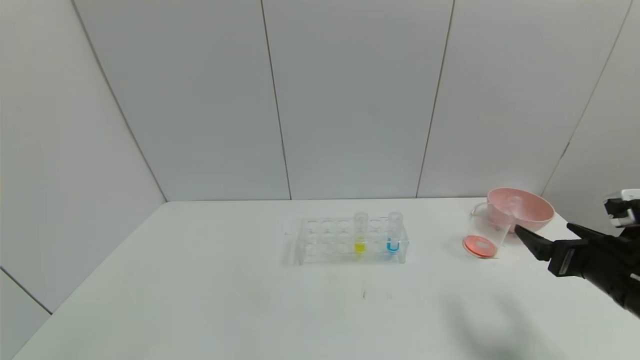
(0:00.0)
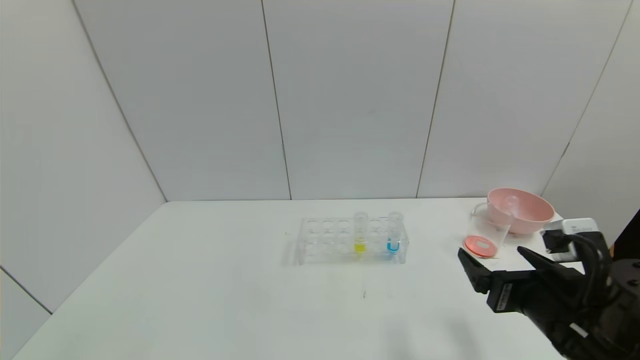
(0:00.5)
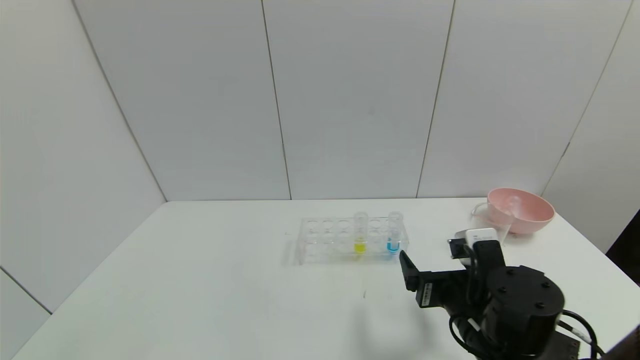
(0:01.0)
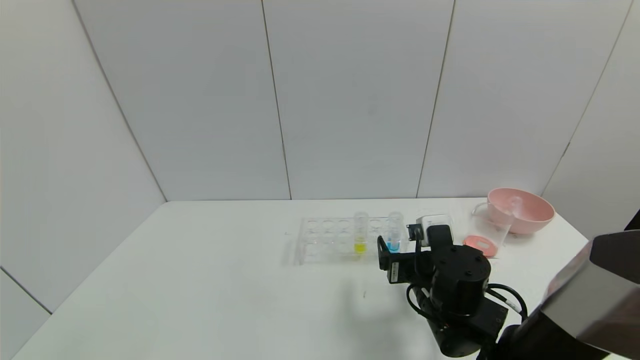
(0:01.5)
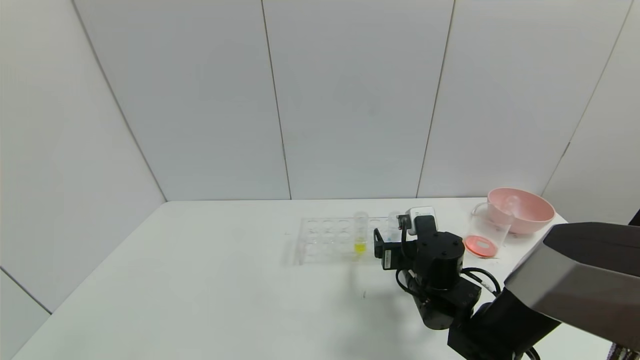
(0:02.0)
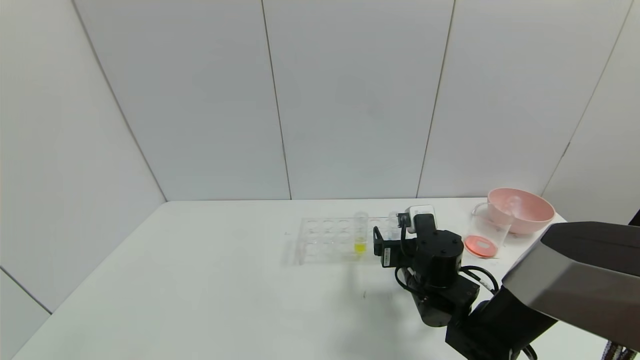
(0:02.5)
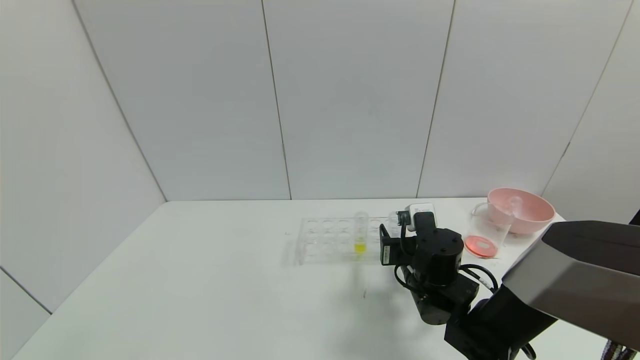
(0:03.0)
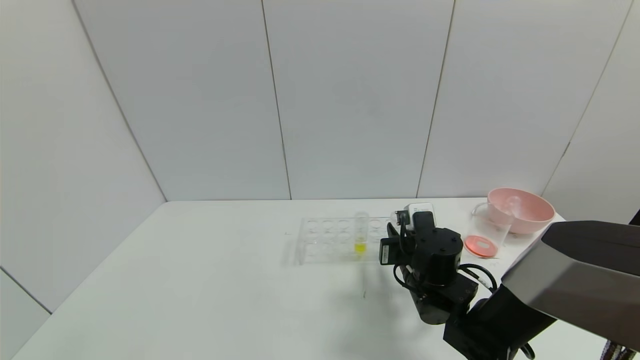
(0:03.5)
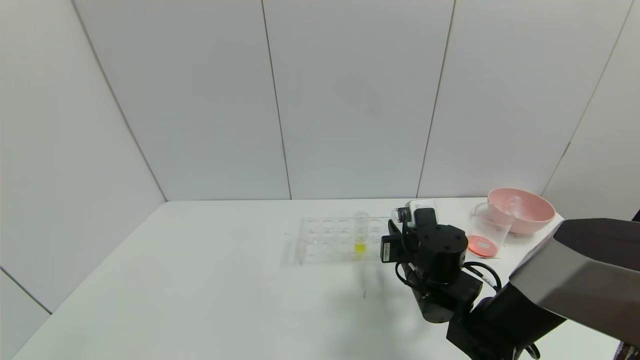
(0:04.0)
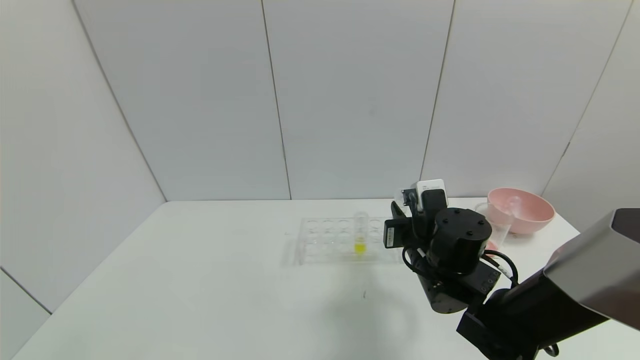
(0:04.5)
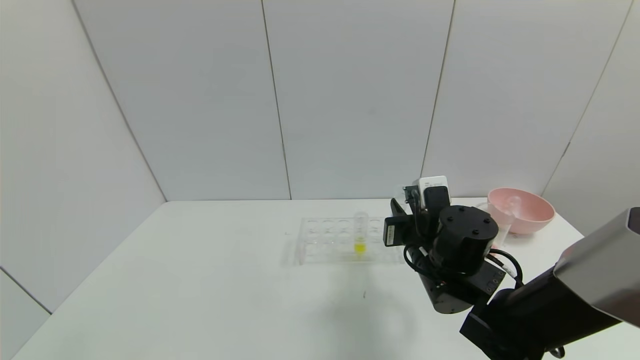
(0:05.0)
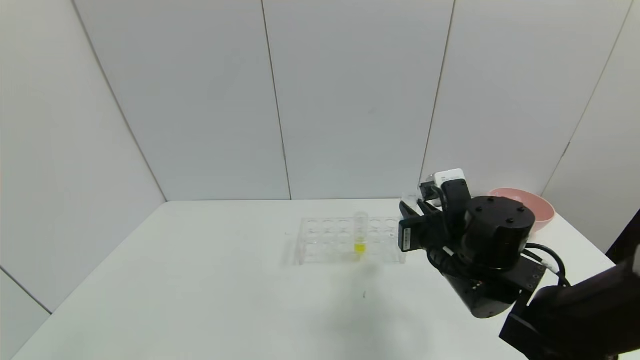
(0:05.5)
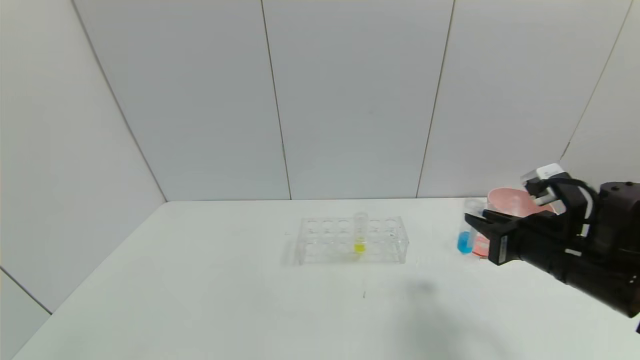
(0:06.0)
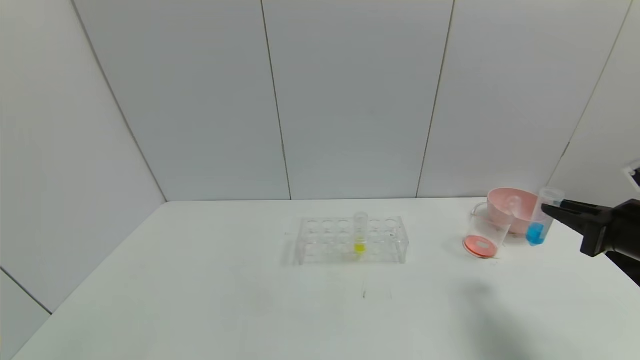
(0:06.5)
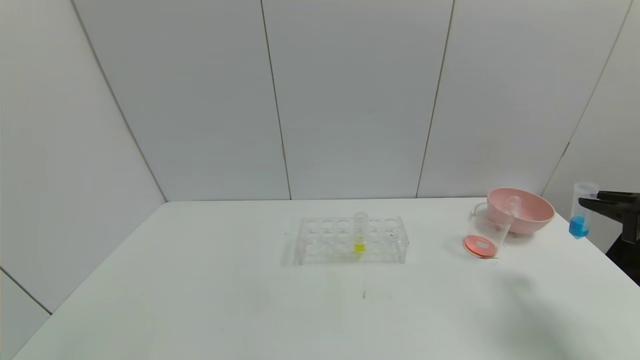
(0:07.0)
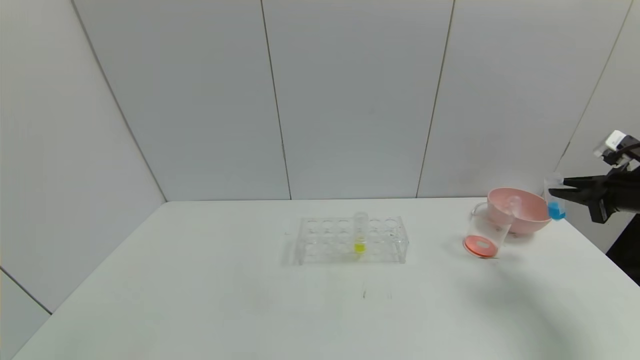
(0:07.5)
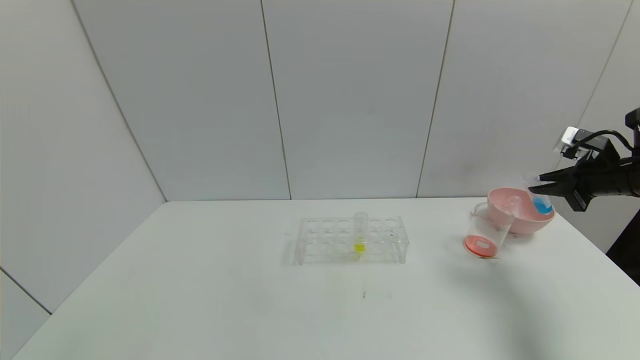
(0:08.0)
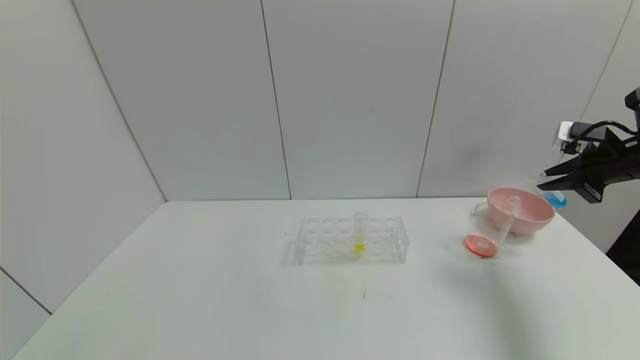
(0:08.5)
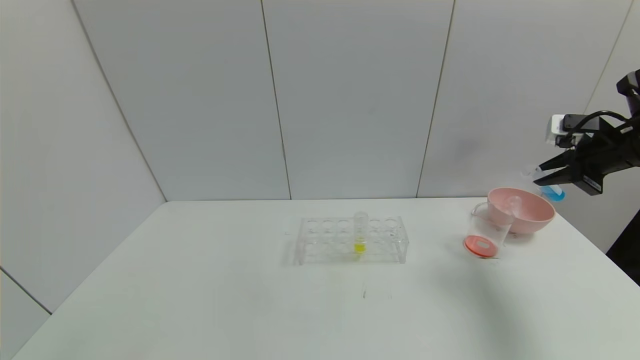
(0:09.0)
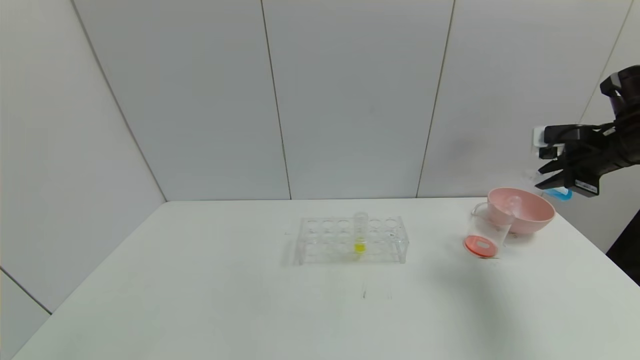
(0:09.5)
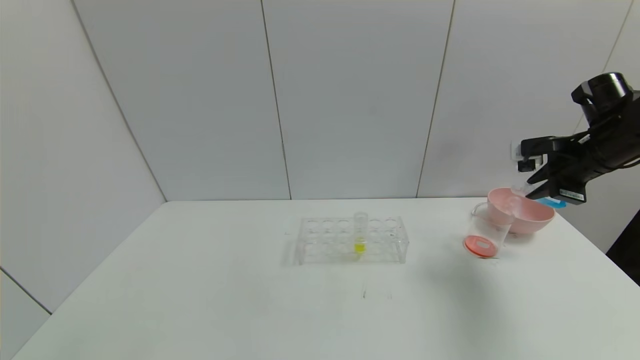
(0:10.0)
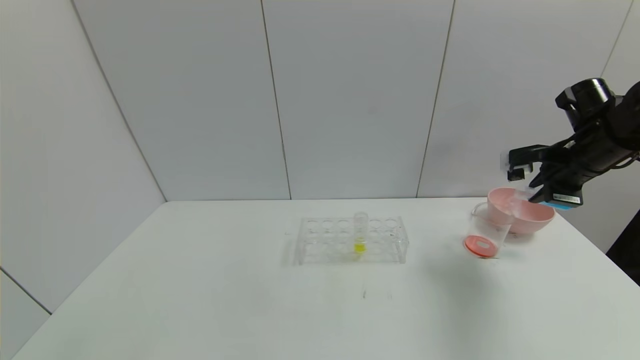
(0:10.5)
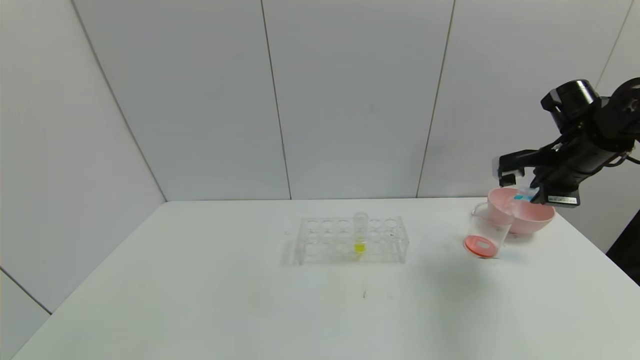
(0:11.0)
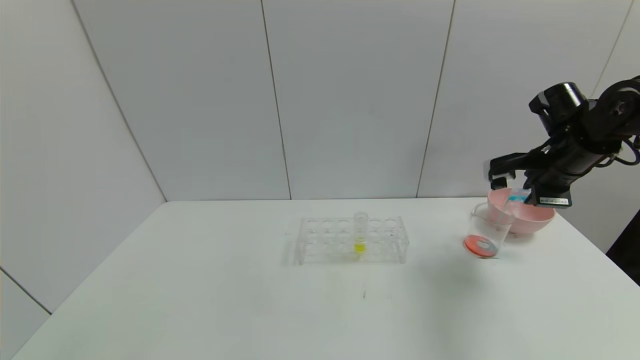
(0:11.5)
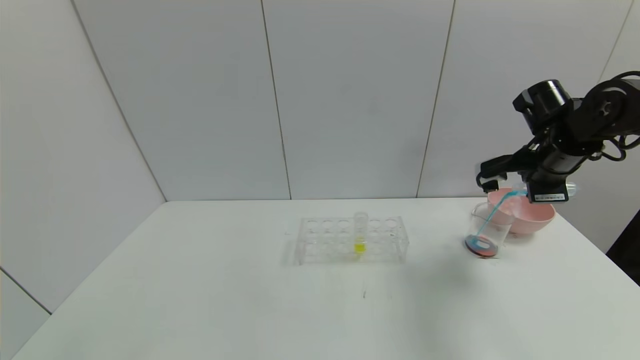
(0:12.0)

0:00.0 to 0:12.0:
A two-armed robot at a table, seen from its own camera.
Task of the whole recording: pick up the test tube with red pigment and the test tube with blue pigment by grippers and pour them into the container.
Step, 0:00.0 to 0:03.0: Grasp the blue reagent with the right gripper.
0:00.0 to 0:02.0: The right gripper goes approximately 20 cm to the left and forward.
0:02.0 to 0:04.0: The right gripper closes up.
0:04.0 to 0:06.0: The right gripper shifts some 20 cm to the right and upward.
0:06.0 to 0:08.0: The right gripper moves to the right and forward, about 20 cm.
0:08.0 to 0:10.0: The right gripper heads to the left, covering approximately 5 cm.
0:10.0 to 0:12.0: The right gripper heads to the left, covering about 5 cm.

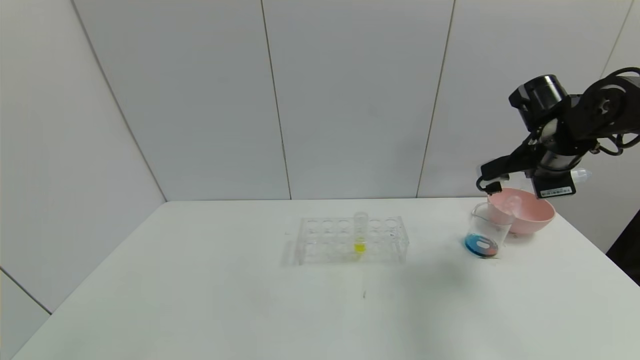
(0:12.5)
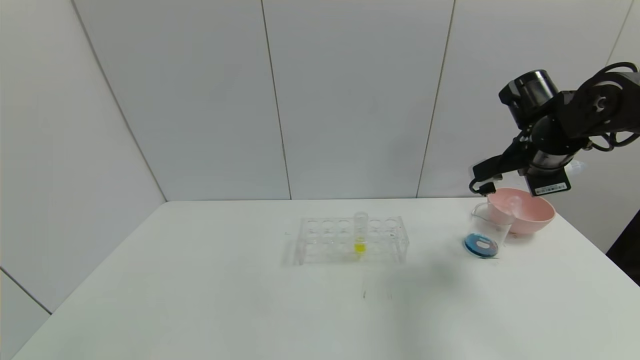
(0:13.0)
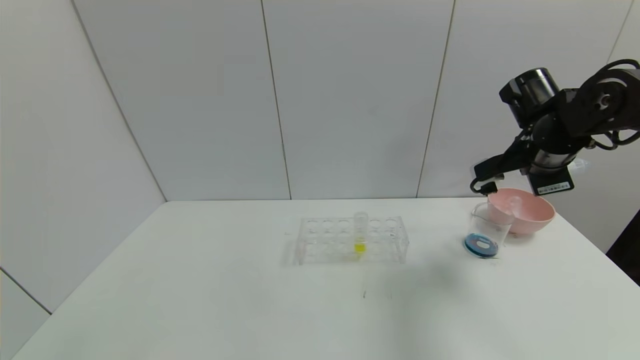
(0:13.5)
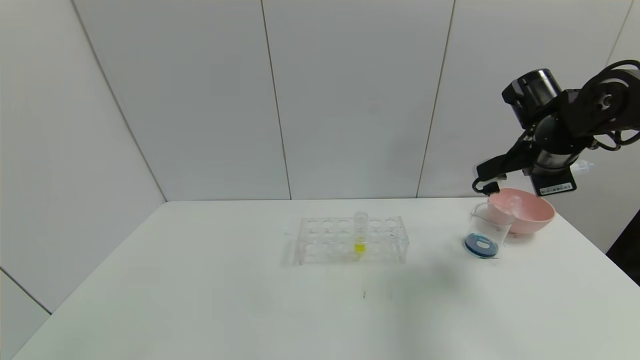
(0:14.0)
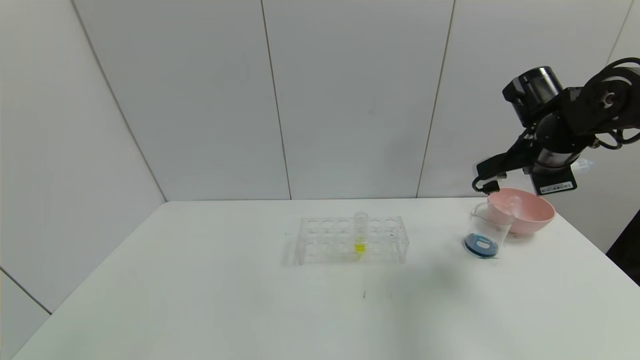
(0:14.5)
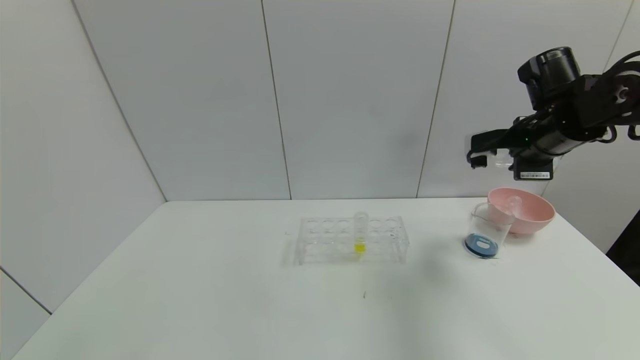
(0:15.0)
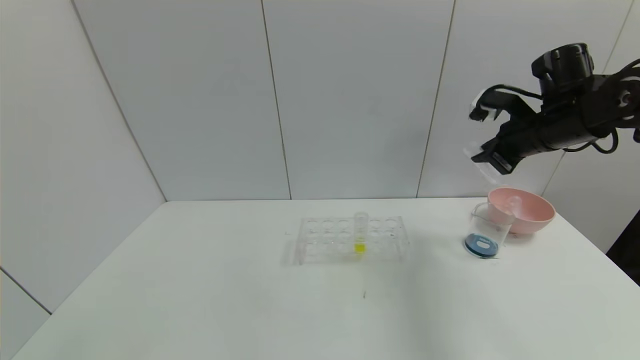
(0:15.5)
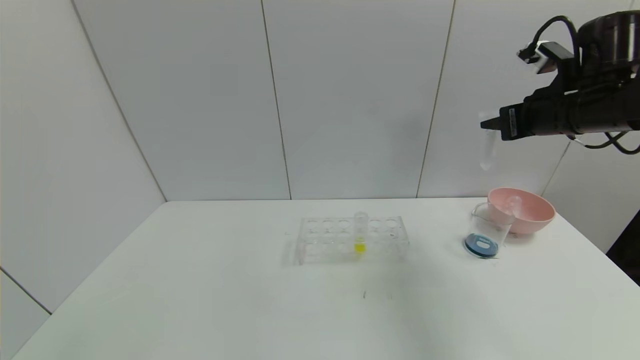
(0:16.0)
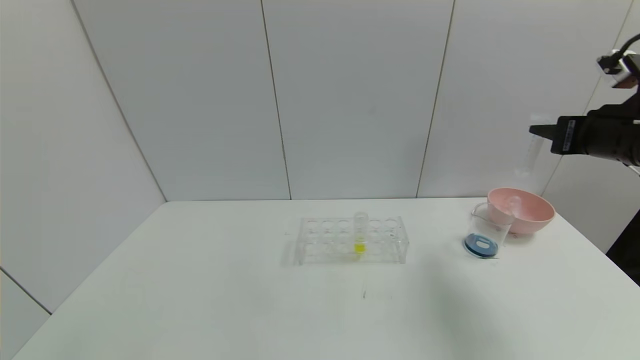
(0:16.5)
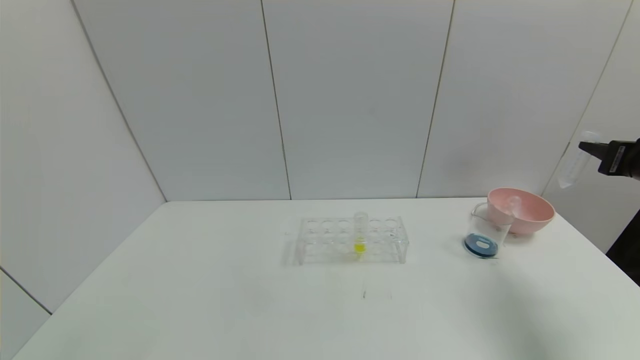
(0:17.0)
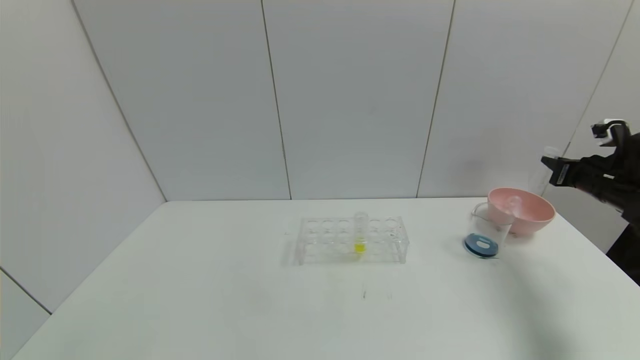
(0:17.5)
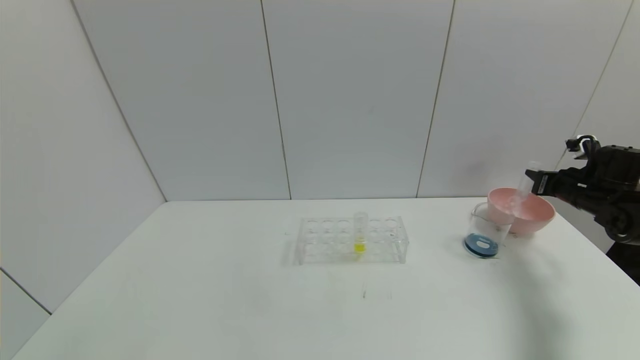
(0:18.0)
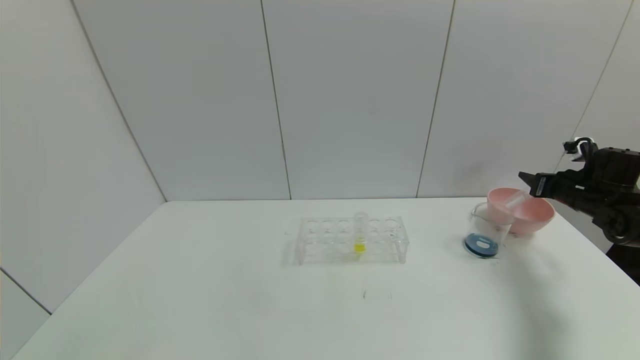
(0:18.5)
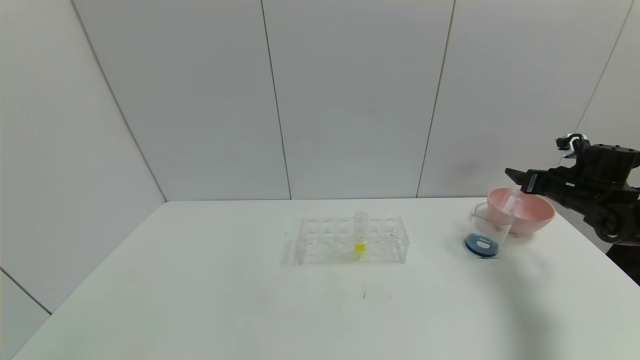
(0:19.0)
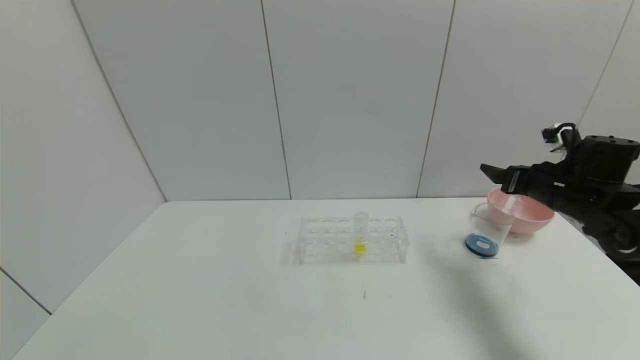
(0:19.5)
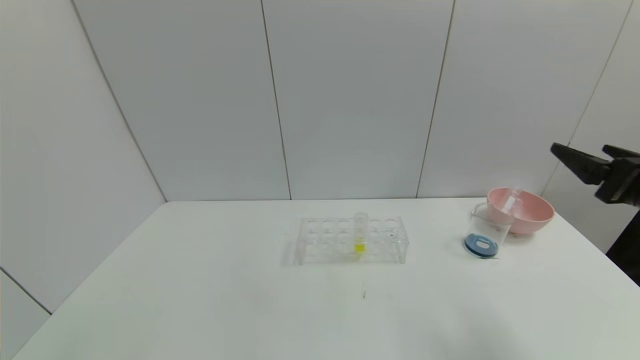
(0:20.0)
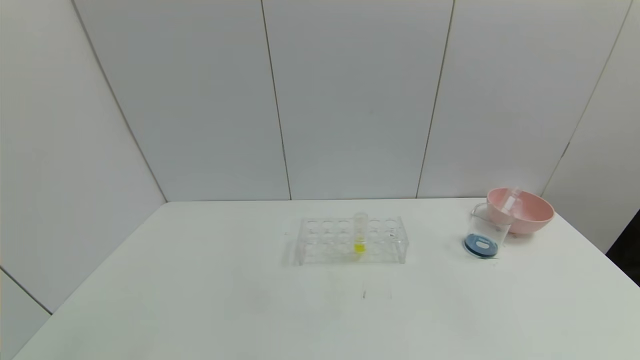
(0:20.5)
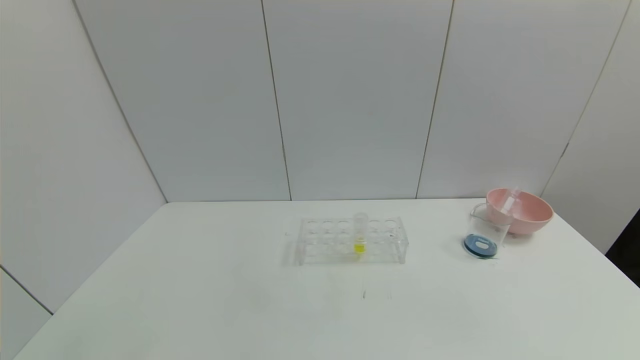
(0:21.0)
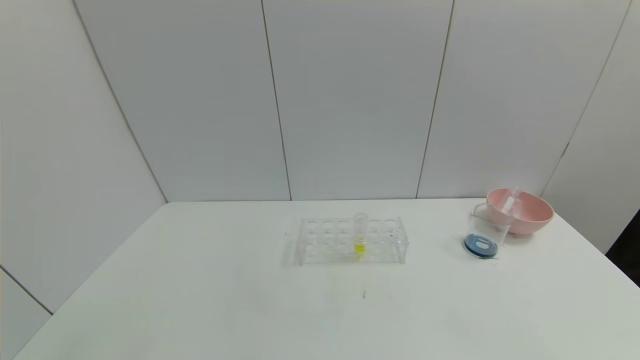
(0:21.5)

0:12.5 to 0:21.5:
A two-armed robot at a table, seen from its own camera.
Task of the whole recording: pick up the test tube with red pigment and the test tube with blue pigment by grippers and pour them into the container.
Step, 0:13.0 to 0:18.5: Place the test tube into the bowl with the right gripper.
0:12.5 to 0:14.5: The grippers make only small movements.
0:14.5 to 0:17.0: The right gripper heads to the right, covering about 15 cm.
0:17.0 to 0:19.5: The right gripper is displaced to the left, downward and forward by about 10 cm, and opens its fingers.
0:19.5 to 0:21.5: The right gripper heads backward, covering some 40 cm.
